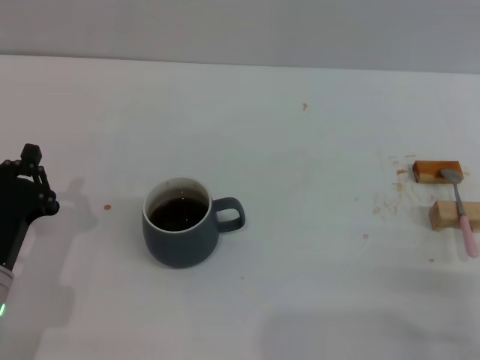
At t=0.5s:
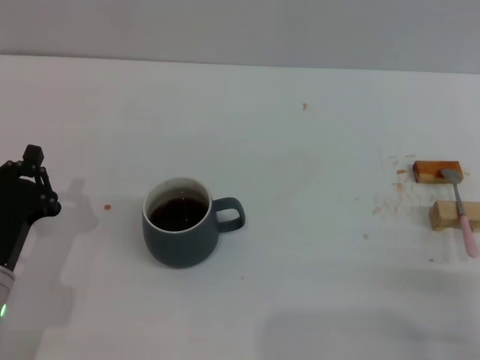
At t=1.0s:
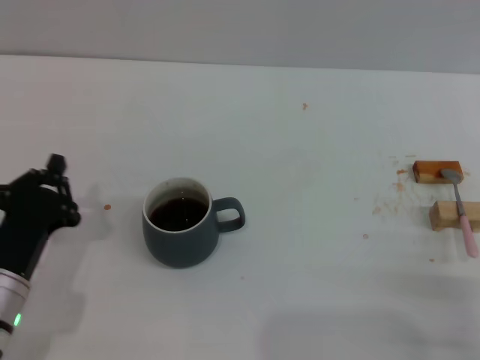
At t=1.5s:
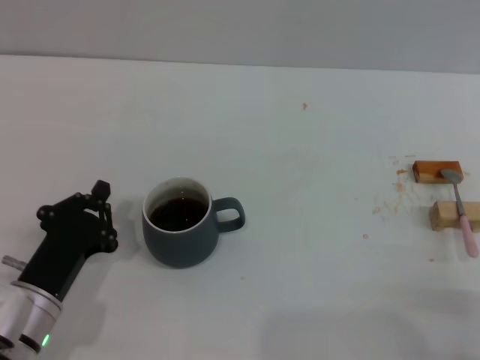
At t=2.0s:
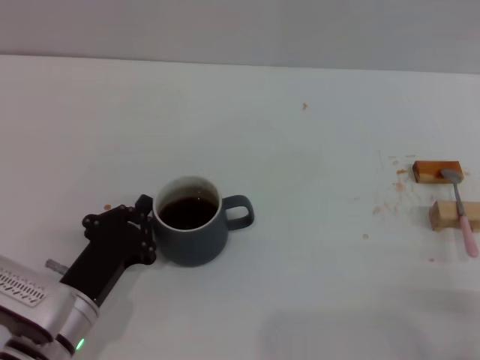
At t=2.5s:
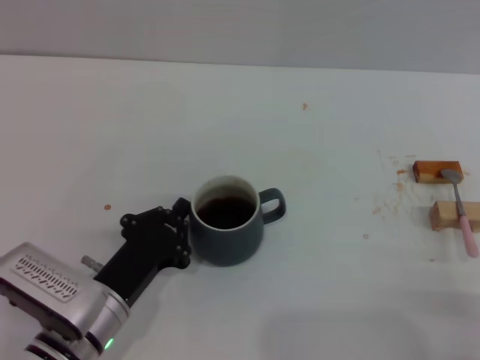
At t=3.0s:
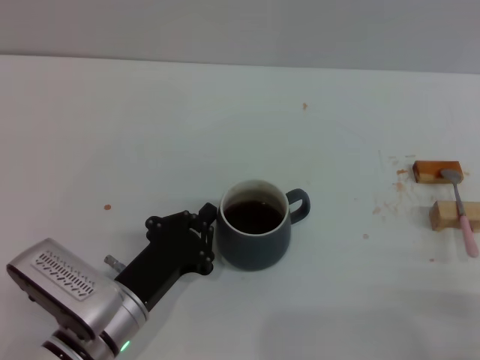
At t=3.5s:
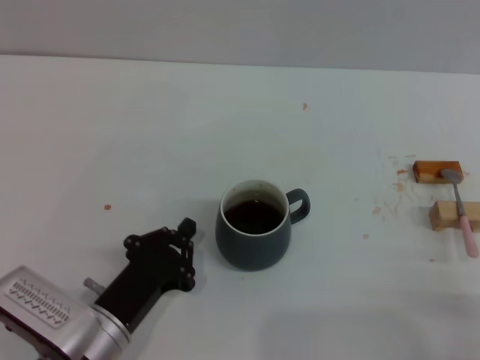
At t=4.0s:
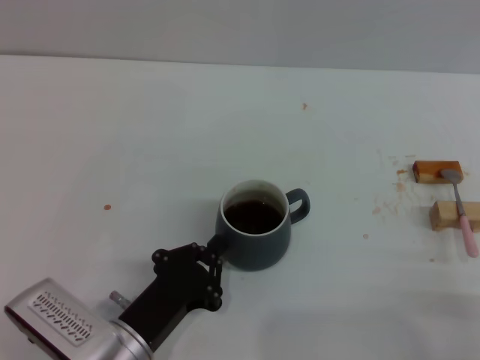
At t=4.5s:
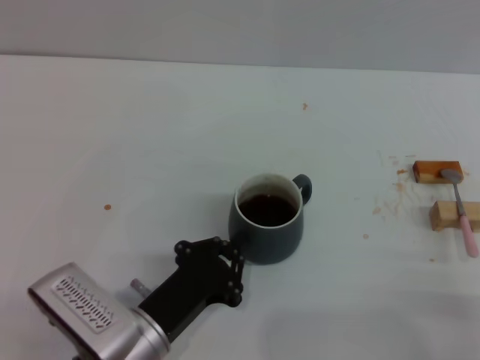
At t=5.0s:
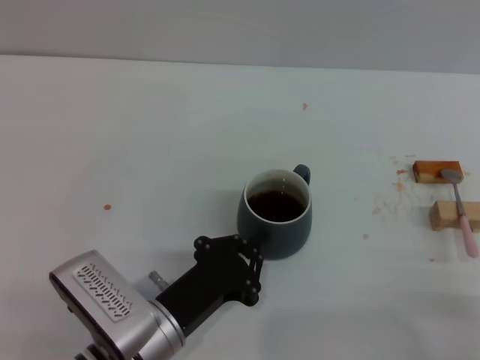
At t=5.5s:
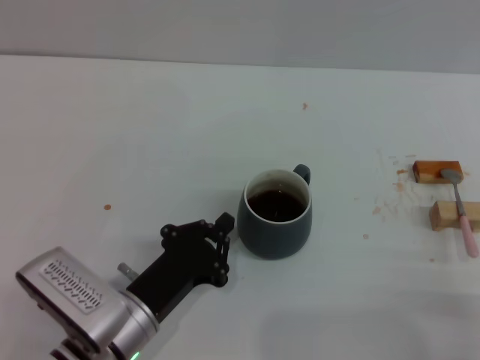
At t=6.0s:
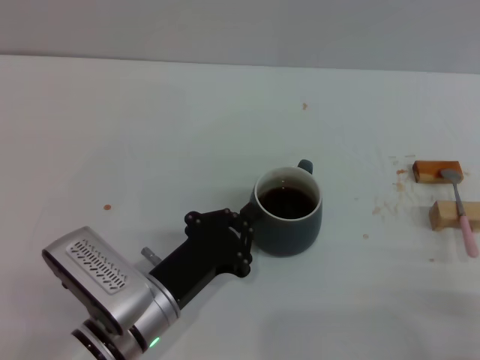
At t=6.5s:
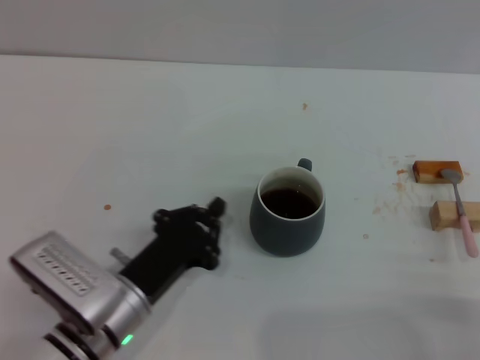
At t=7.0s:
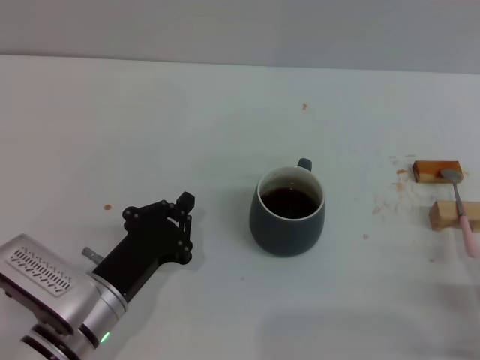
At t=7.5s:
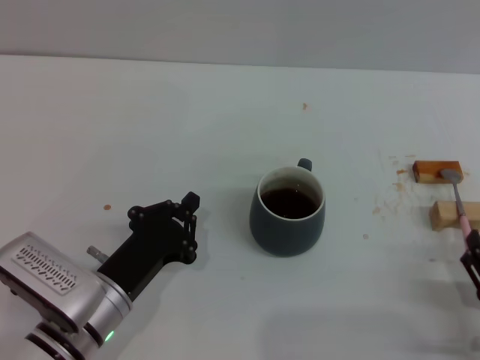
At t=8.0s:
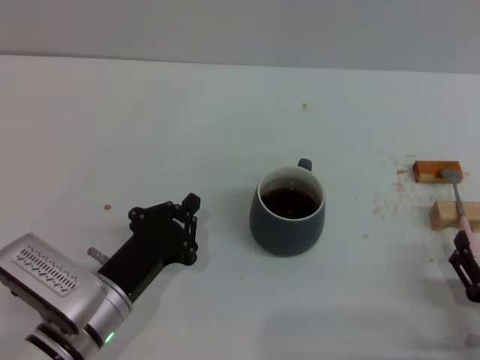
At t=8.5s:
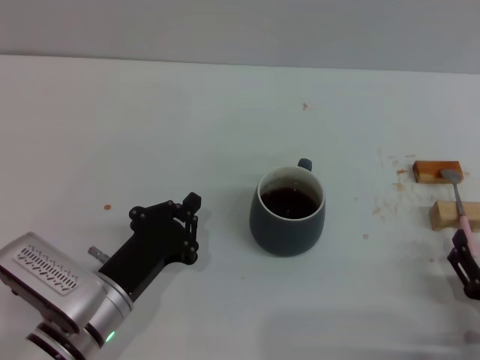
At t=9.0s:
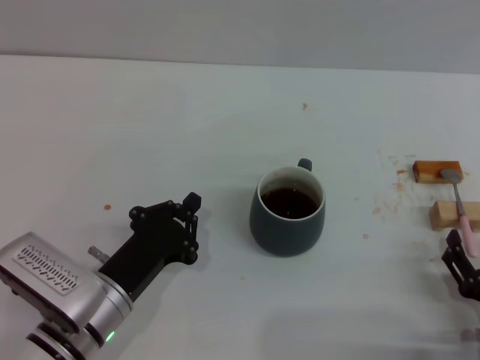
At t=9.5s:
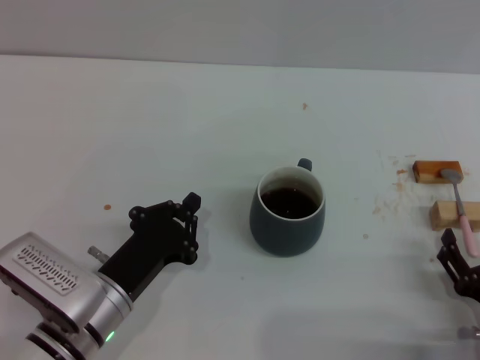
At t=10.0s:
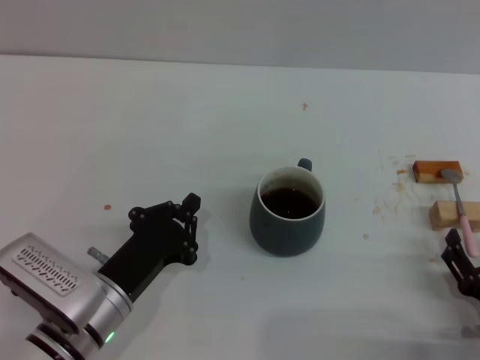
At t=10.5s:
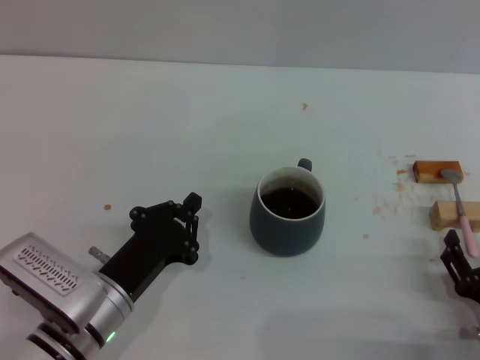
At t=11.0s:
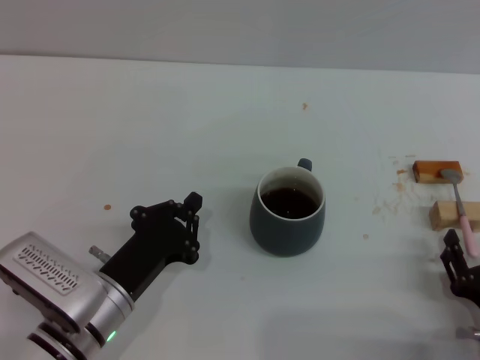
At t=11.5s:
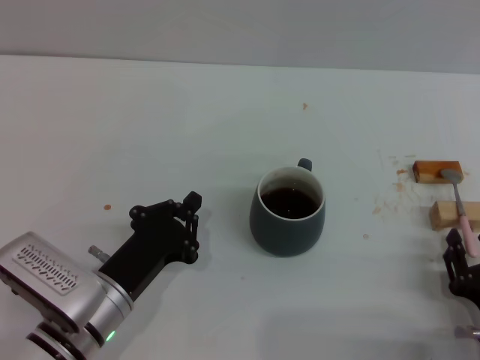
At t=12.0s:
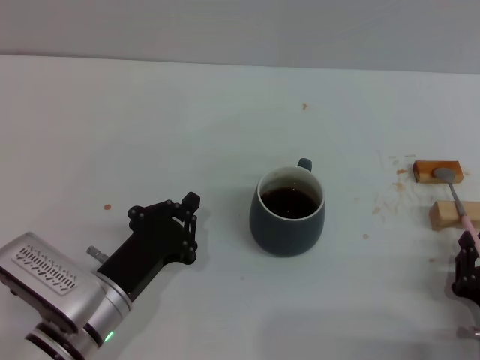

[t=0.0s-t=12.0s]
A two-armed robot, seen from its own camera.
Task of the whole recording: Move the grey cup to the center, lift the pink spoon, stir it three times in the cup, and put the spoon into the cup.
Step, t=0.0s to t=6.5s: Move the cup with coffee to the center of view with the left gripper.
t=0.0s to t=2.0s: The left gripper travels to the right by some 5 cm.
t=2.0s to t=4.0s: The left gripper changes place by approximately 5 cm.
t=4.0s to t=6.0s: The grippers move only a little.
t=6.0s to t=8.0s: The right gripper ends up some 5 cm from where it was.
t=8.0s to t=10.0s: The grippers move only a little.
t=10.0s to t=12.0s: The right gripper closes.

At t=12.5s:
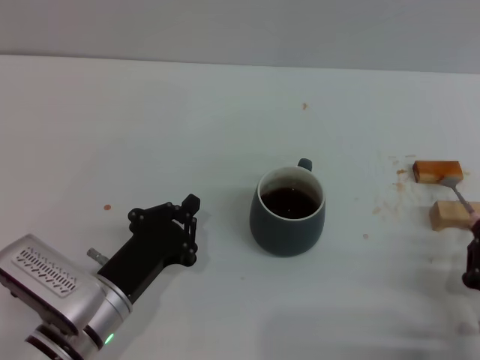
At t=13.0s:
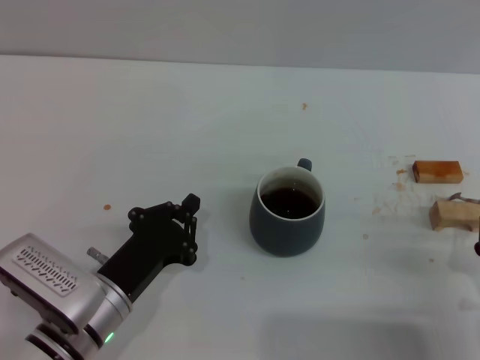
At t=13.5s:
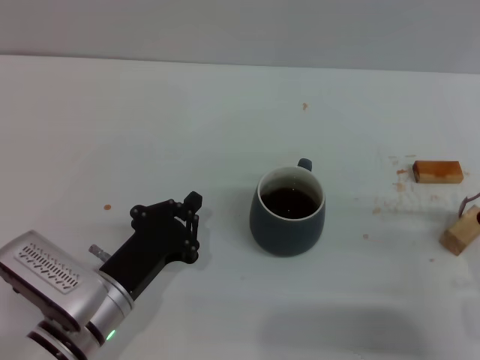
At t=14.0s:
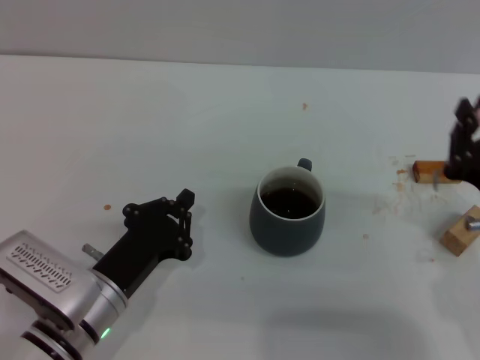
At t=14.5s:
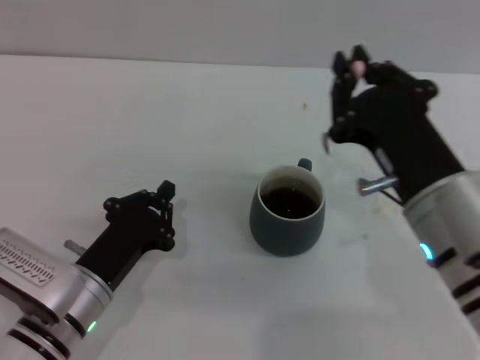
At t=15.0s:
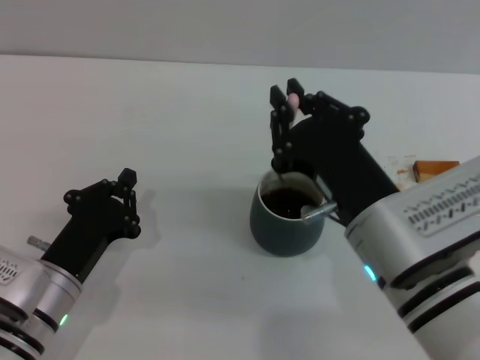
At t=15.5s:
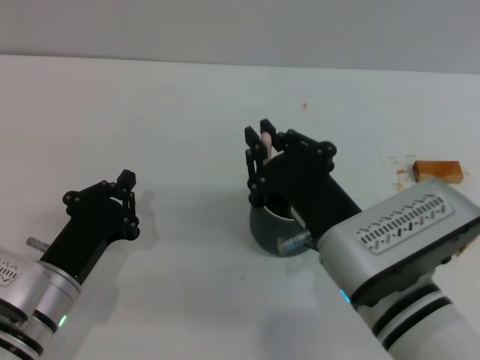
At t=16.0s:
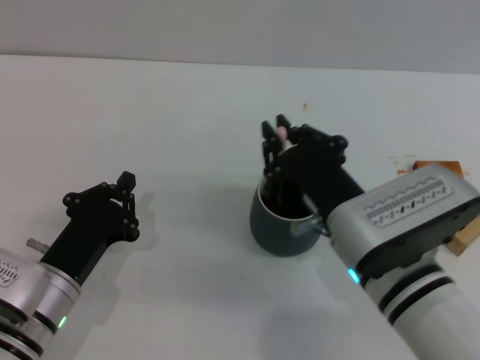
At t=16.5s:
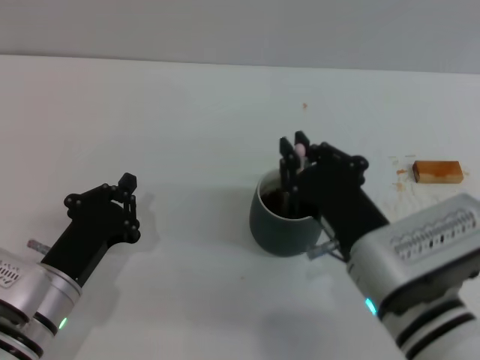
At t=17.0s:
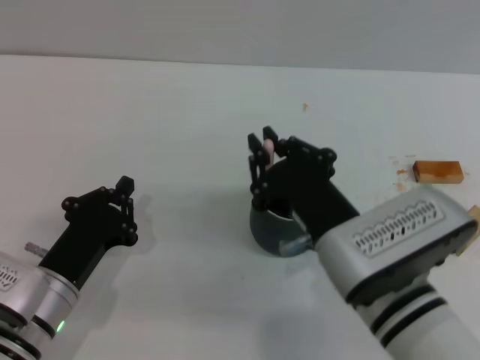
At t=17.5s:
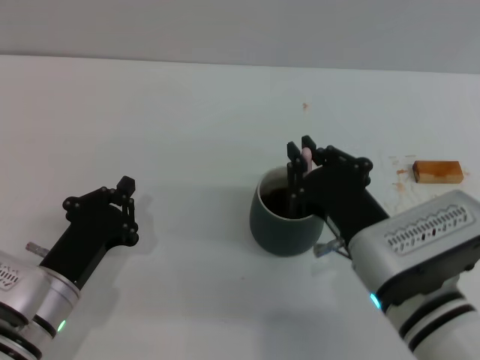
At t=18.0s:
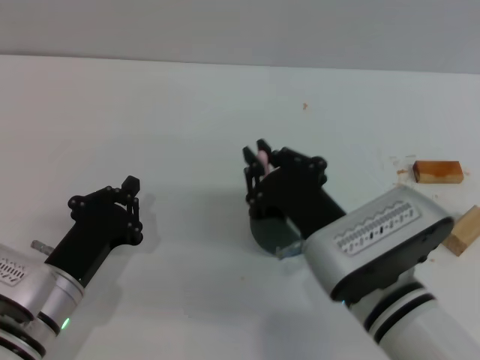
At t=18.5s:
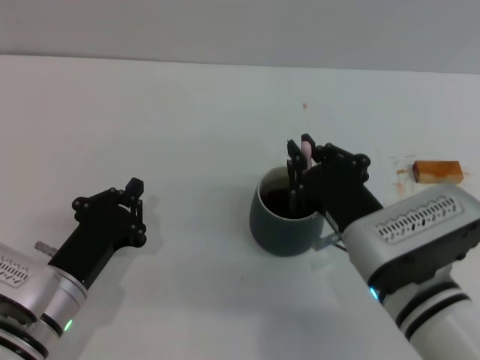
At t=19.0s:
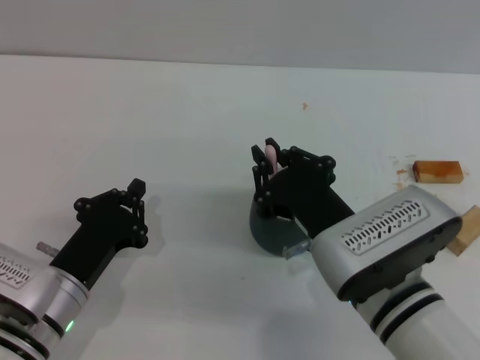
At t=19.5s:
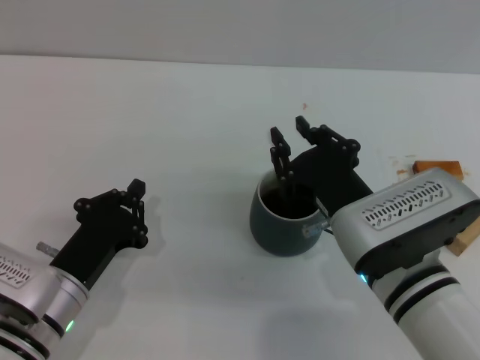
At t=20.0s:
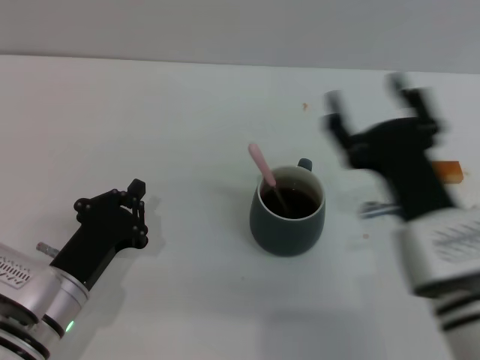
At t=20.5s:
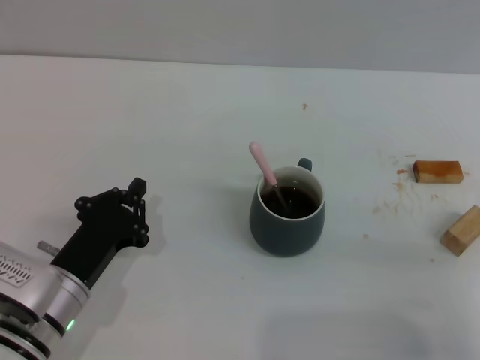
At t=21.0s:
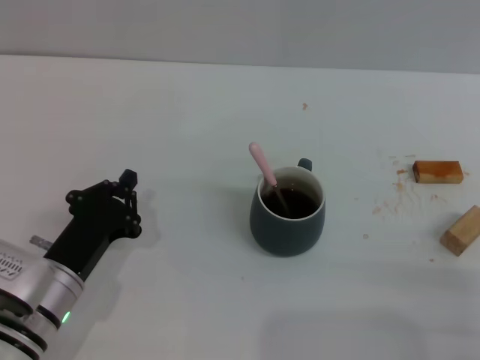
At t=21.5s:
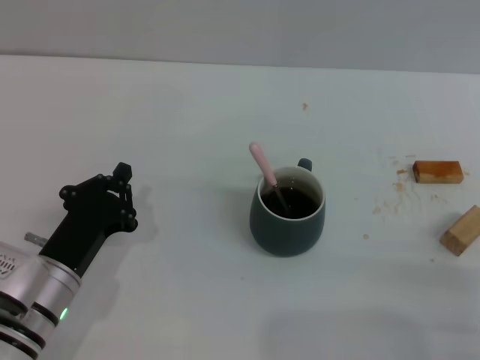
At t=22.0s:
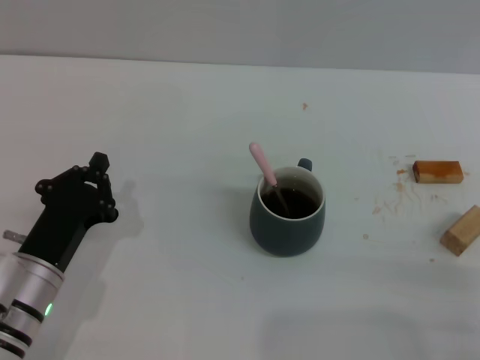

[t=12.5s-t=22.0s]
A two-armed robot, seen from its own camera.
Task of the whole recording: Move the grey cup to the center, lift the pink spoon, stir it three times in the cup, and put the spoon into the cup.
Step, t=14.0s to t=19.5s: Stir the coffee in the cup with the right gripper.
t=12.5s to t=14.5s: The right gripper travels upward, to the left and forward by roughly 20 cm.
t=14.5s to t=16.5s: The right gripper heads downward, covering approximately 5 cm.
t=16.5s to t=18.0s: The grippers make only small movements.
t=18.0s to t=20.0s: The right gripper travels to the right by about 5 cm, and opens its fingers.
t=20.0s to t=22.0s: The right gripper travels to the right, backward and downward by roughly 20 cm, and opens its fingers.

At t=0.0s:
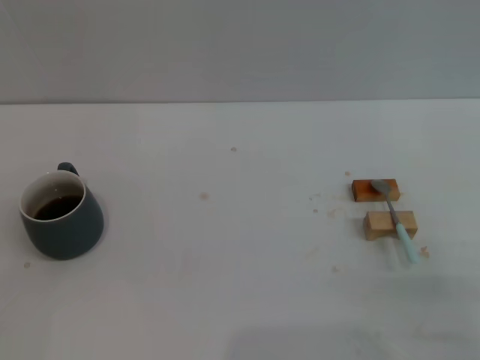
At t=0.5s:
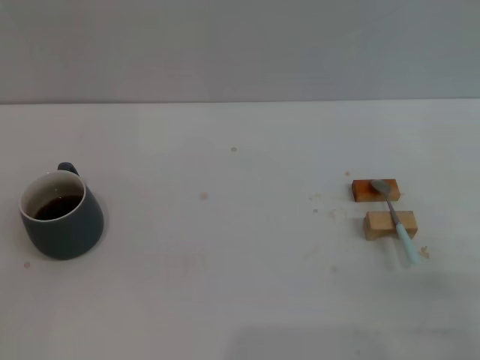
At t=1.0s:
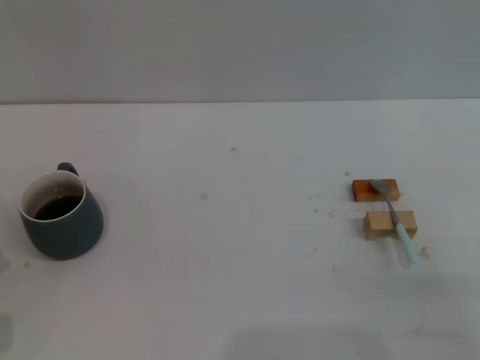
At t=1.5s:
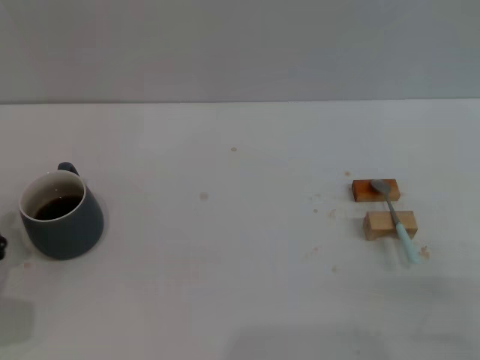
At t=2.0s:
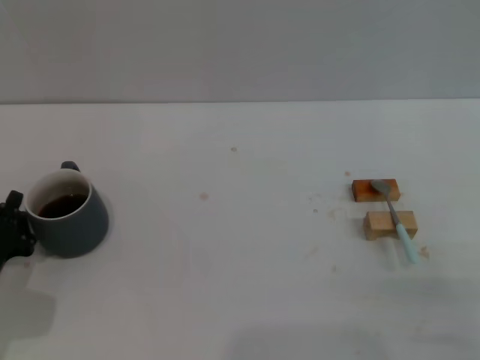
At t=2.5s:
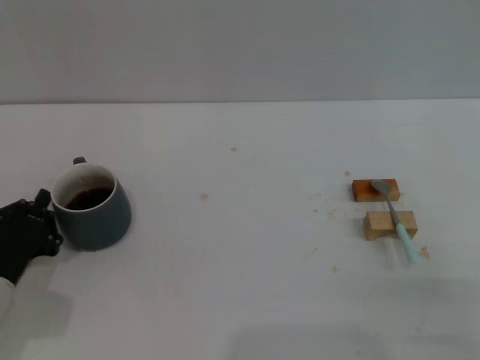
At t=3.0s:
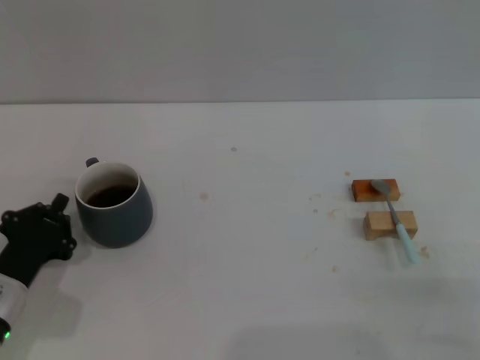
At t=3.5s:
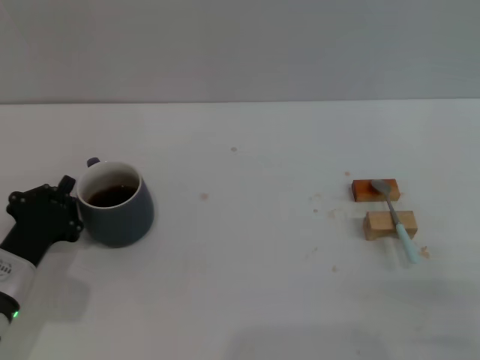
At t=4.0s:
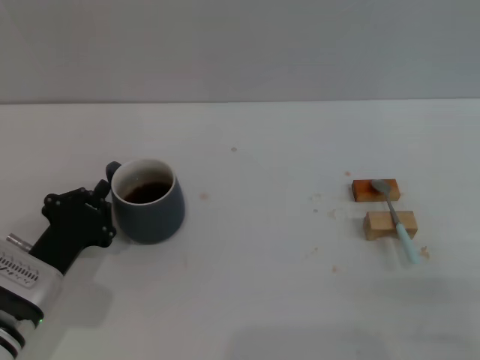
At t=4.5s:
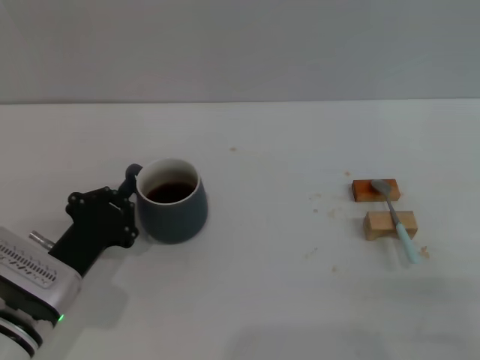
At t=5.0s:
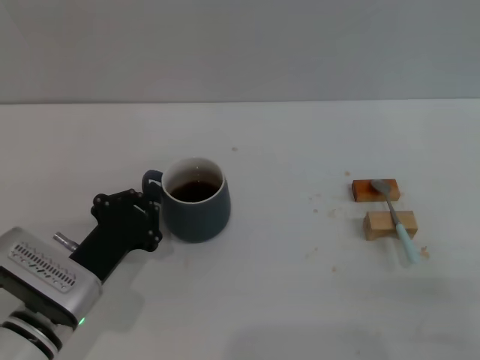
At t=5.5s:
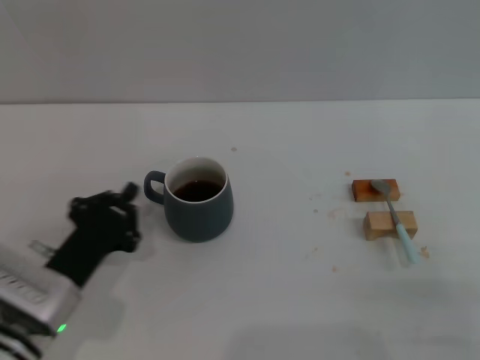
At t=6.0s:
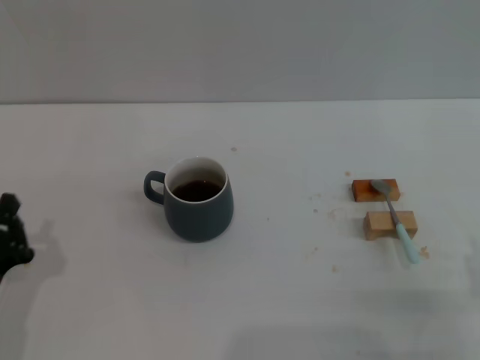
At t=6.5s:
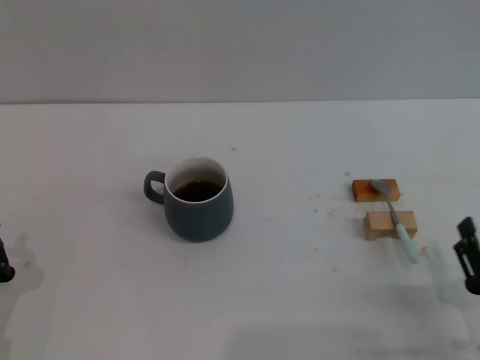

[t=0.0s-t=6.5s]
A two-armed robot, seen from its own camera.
Task of the whole recording: Move the grey cup to the center, lift the blue spoon, stir it three times in the cup, and put the spoon into the cup.
Step, t=0.0s to t=5.0s: Move the cup with coffee to the center of view with the left gripper.
t=0.0s to t=2.0s: The left gripper goes approximately 10 cm forward.
t=2.0s to t=4.5s: The left gripper is displaced to the right by some 10 cm.
t=4.5s to t=6.5s: The left gripper moves to the left and backward, about 10 cm.
